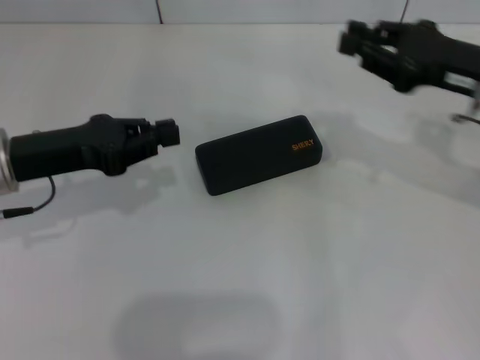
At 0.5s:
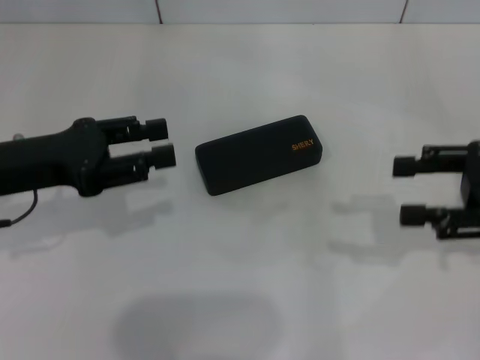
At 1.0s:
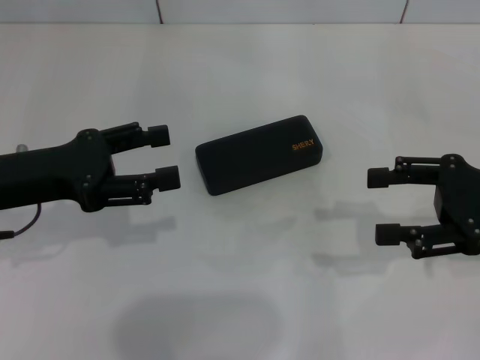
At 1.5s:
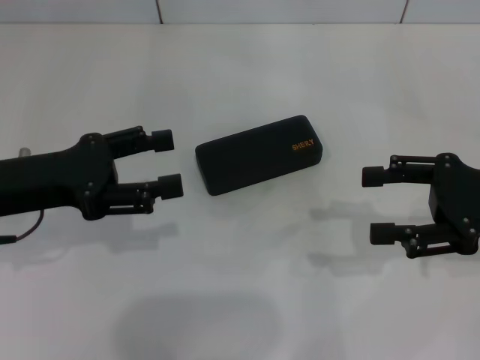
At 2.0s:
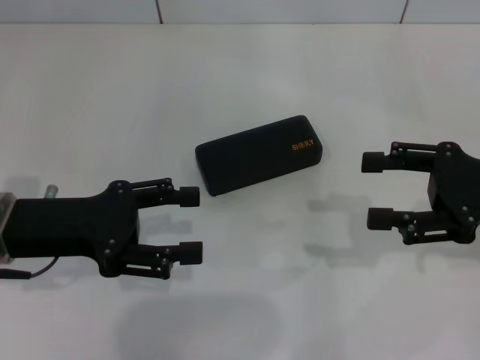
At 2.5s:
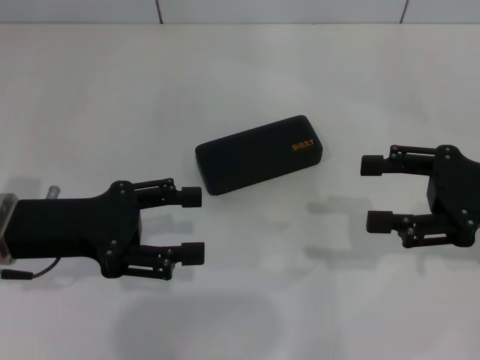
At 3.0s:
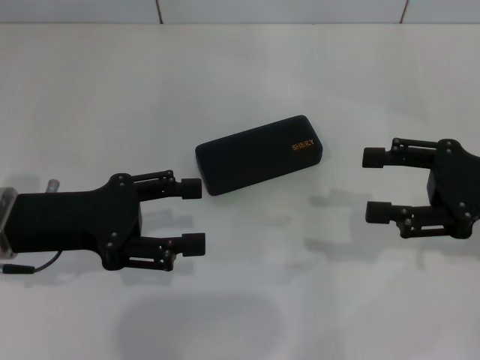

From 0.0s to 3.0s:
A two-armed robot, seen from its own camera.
From 0.0s to 1.5s: The left gripper opens up. The right gripper is displaced backward by some 5 cm, and opens up.
From 1.5s to 3.0s: The grippers stay close to where they were, moving slightly.

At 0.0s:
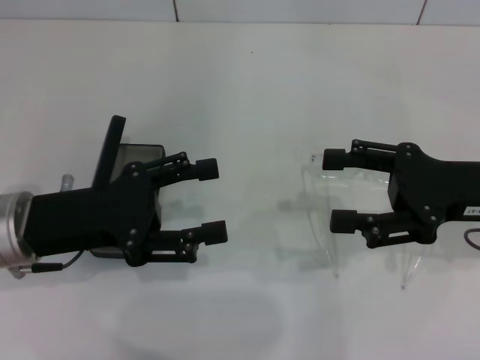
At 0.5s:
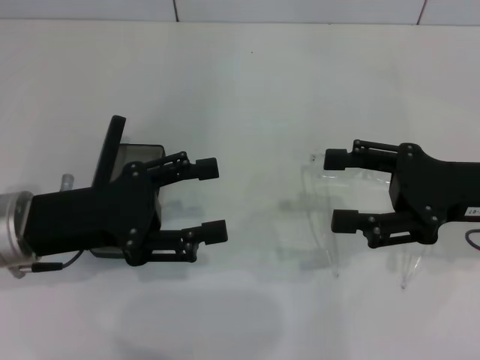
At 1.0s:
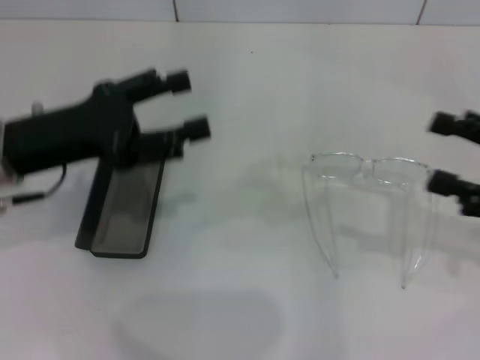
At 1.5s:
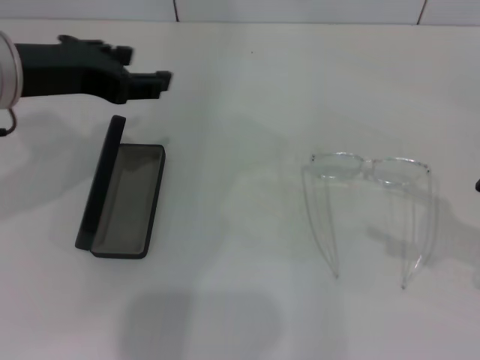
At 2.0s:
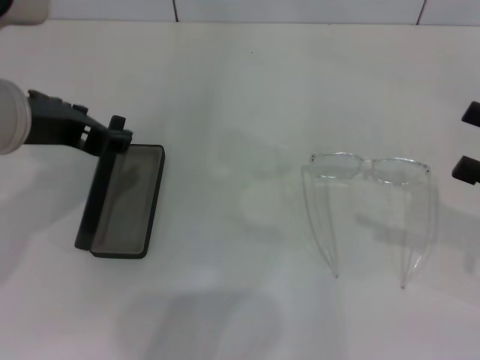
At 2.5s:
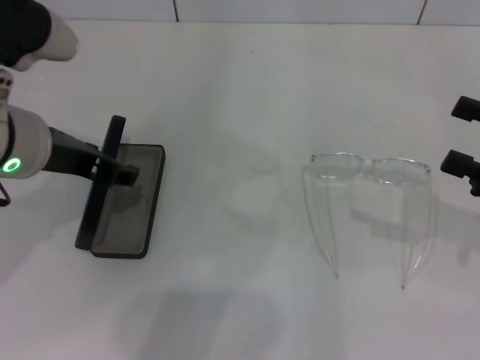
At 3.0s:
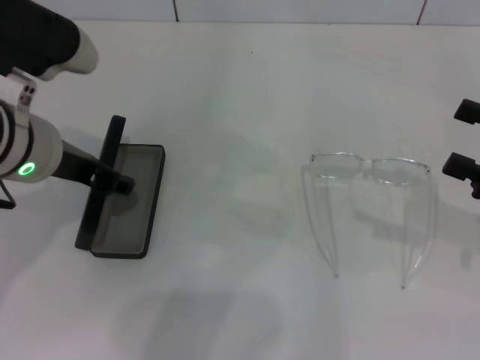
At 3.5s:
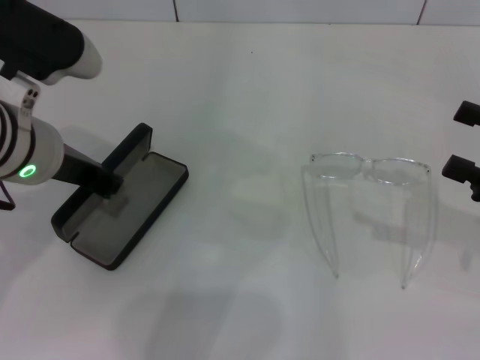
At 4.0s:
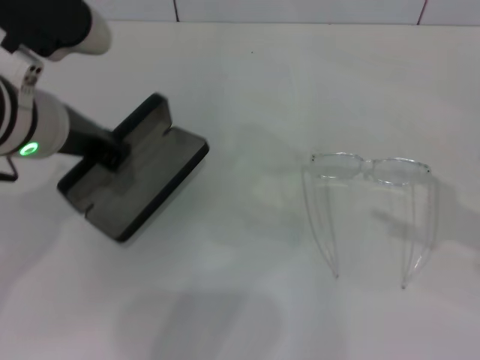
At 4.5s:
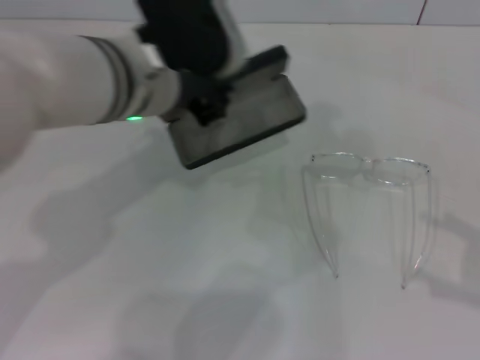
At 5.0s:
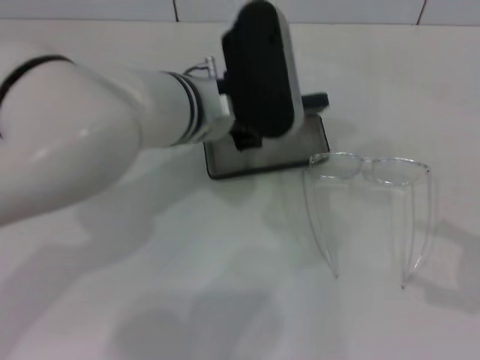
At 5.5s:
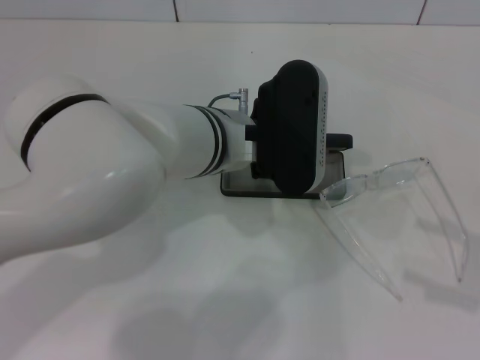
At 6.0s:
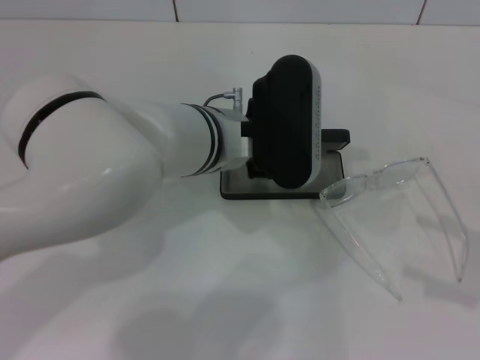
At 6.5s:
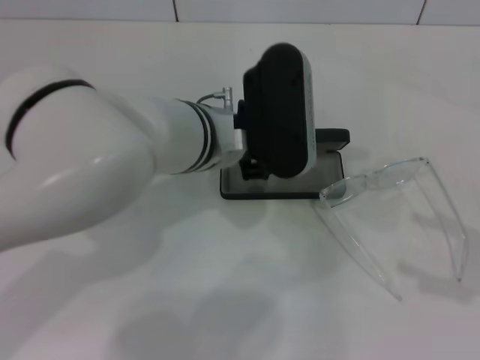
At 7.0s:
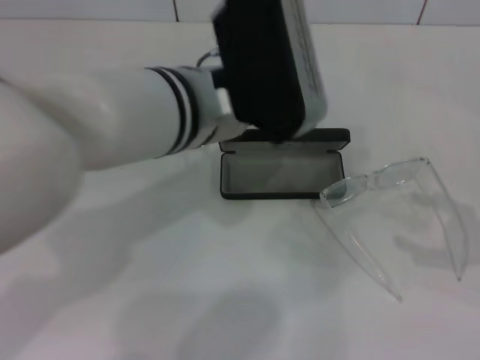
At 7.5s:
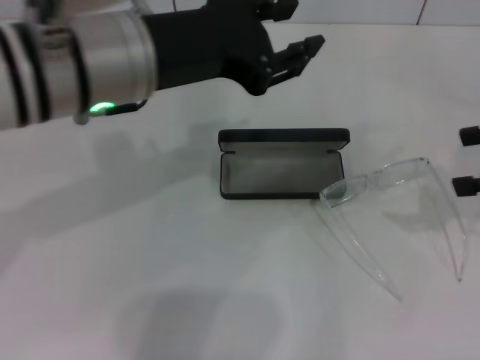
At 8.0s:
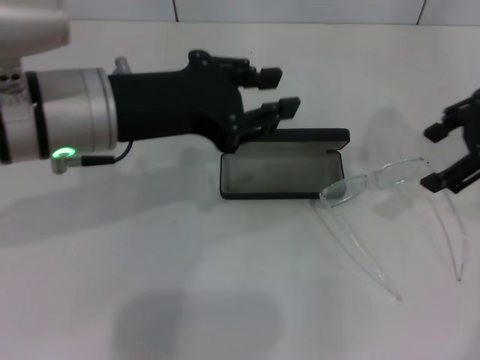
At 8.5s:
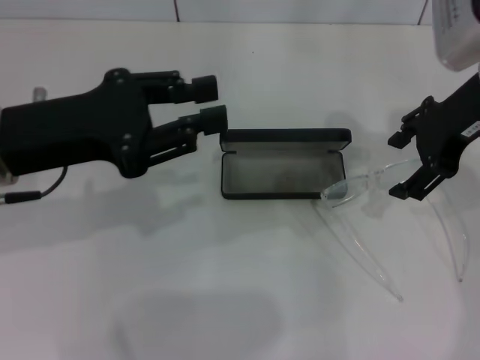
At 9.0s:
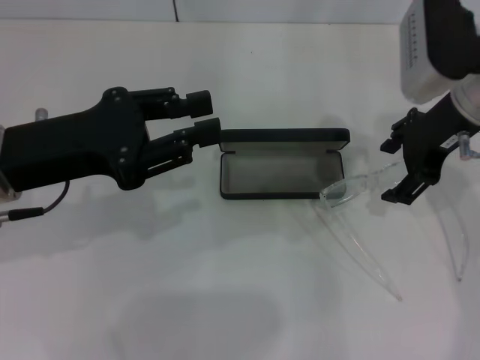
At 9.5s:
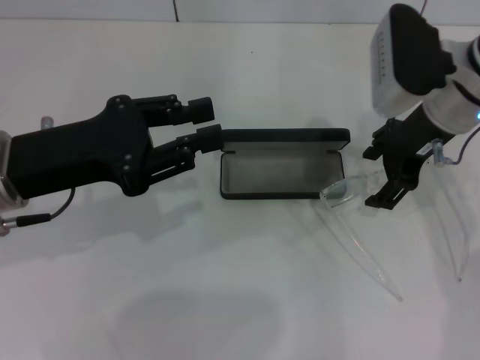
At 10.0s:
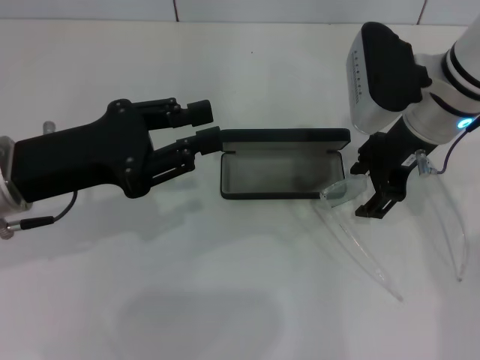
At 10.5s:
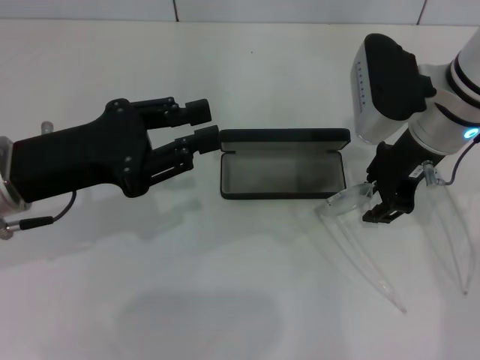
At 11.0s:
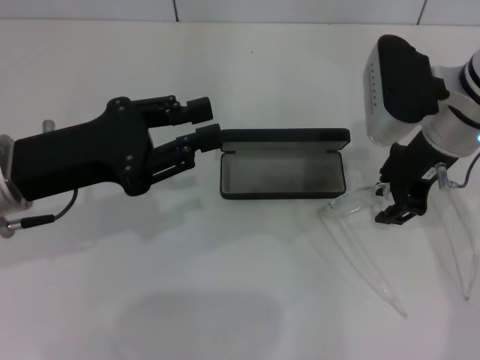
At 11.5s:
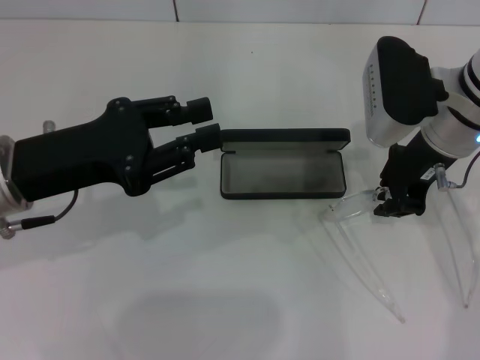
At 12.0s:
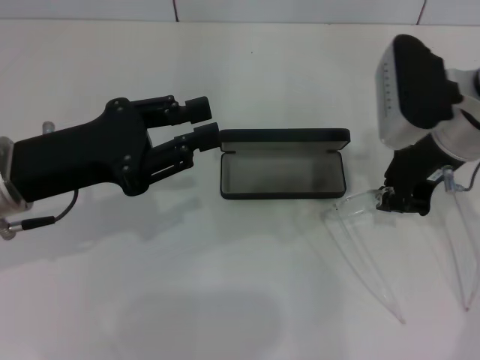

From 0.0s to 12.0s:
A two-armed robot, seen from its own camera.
Step, from 0.0s to 3.0s: Grab the glasses case with your left hand.
Step, from 4.0s to 6.5s: Place the glasses case in the center of the table with your left hand.
Step, from 7.0s to 11.5s: Grab the eyeglass frame with your right hand.
From 0.0s to 2.0s: The right gripper moves to the right, roughly 10 cm, while the left gripper heads upward, covering roughly 10 cm.
From 2.0s to 4.0s: The left gripper closes.
From 4.0s to 6.0s: The left gripper shifts roughly 15 cm to the right and downward; the right gripper goes roughly 5 cm backward.
From 6.0s to 8.0s: The left gripper heads to the left and upward, covering about 15 cm. Meanwhile the right gripper travels forward, to the left and upward by approximately 25 cm.
From 8.0s to 10.0s: The two grippers go some 10 cm to the left and downward.
From 10.0s to 12.0s: The right gripper closes its fingers.

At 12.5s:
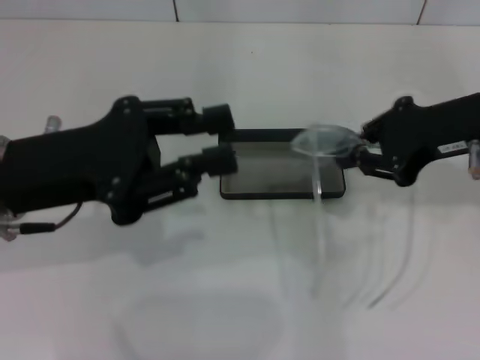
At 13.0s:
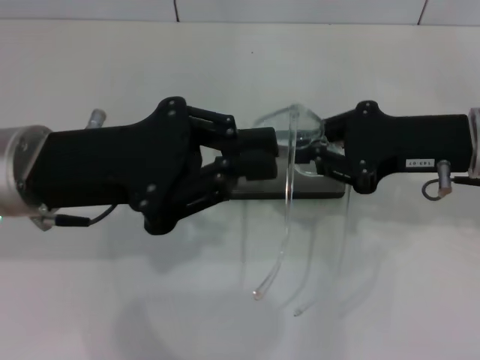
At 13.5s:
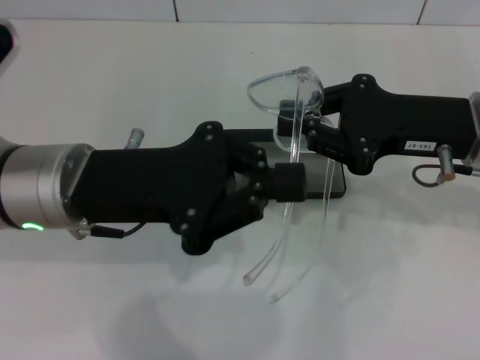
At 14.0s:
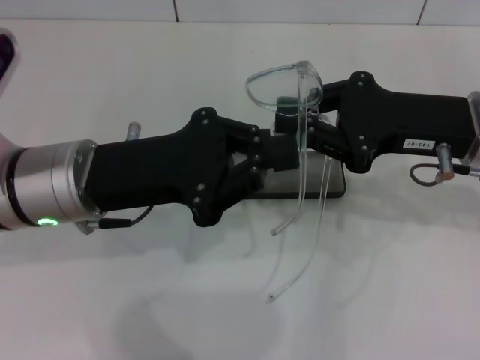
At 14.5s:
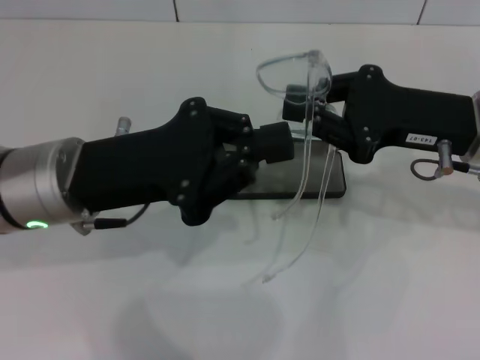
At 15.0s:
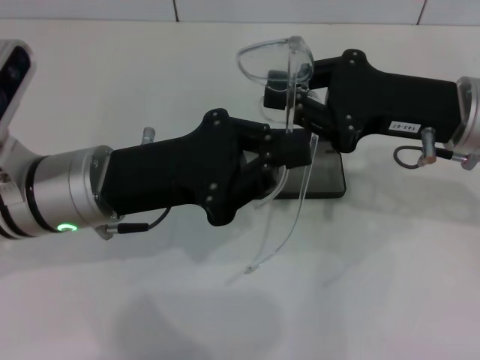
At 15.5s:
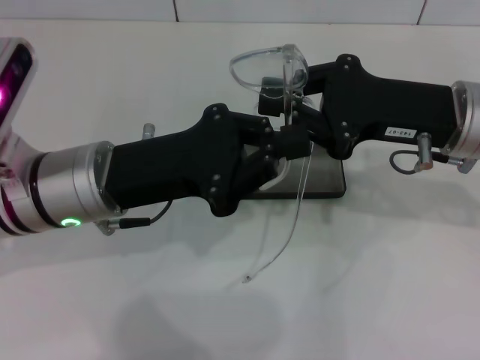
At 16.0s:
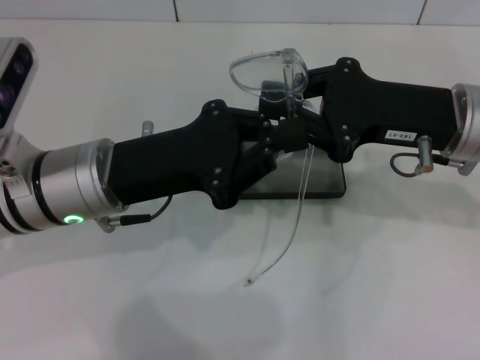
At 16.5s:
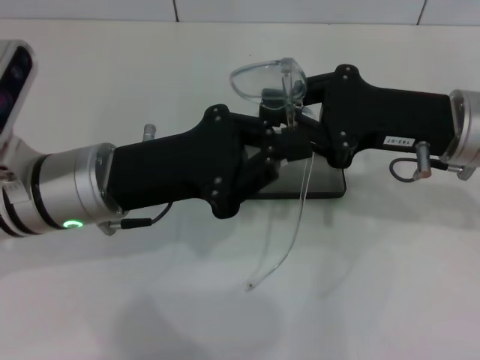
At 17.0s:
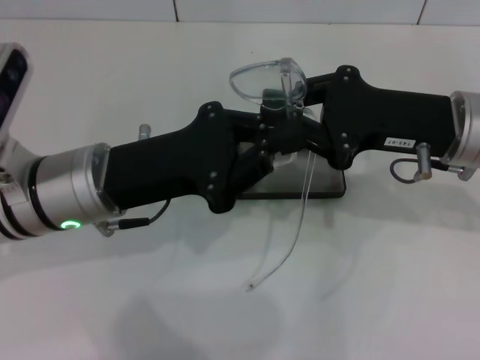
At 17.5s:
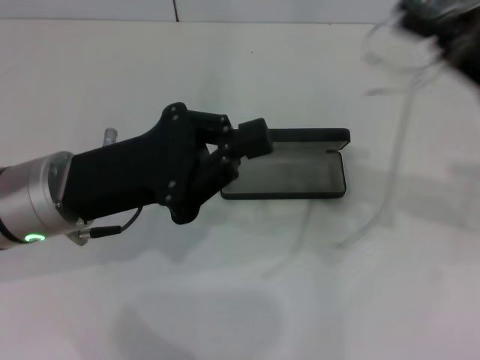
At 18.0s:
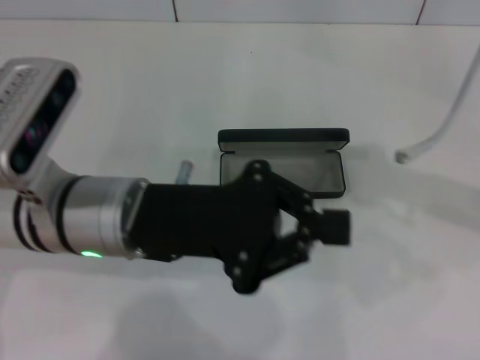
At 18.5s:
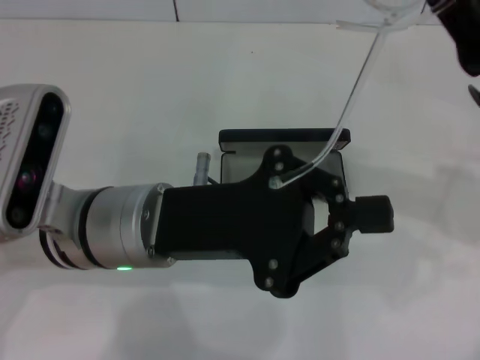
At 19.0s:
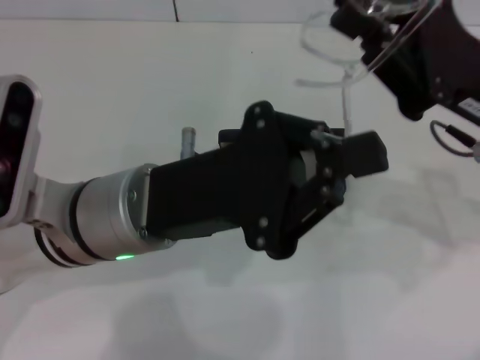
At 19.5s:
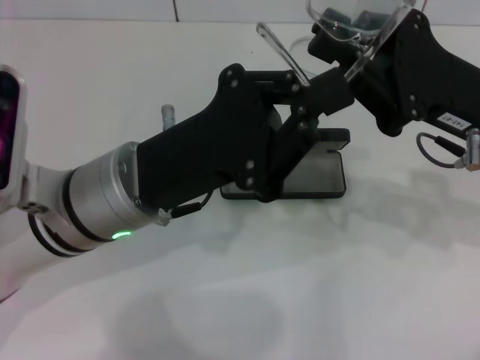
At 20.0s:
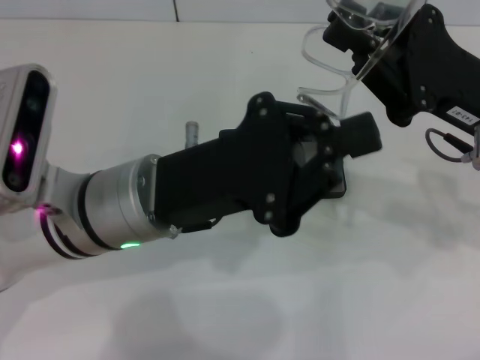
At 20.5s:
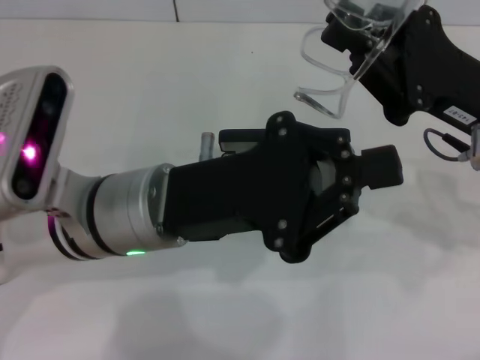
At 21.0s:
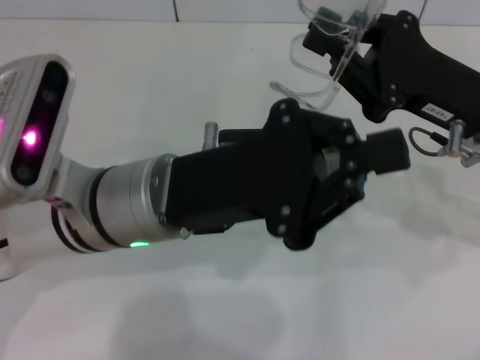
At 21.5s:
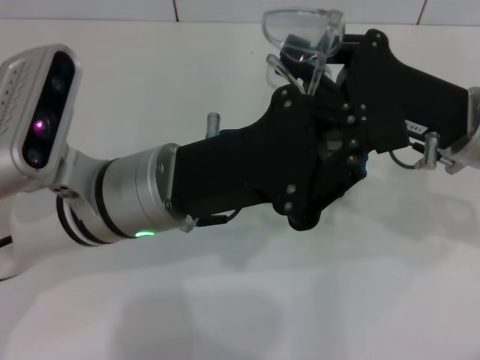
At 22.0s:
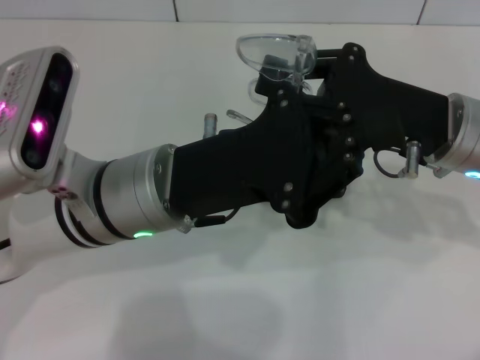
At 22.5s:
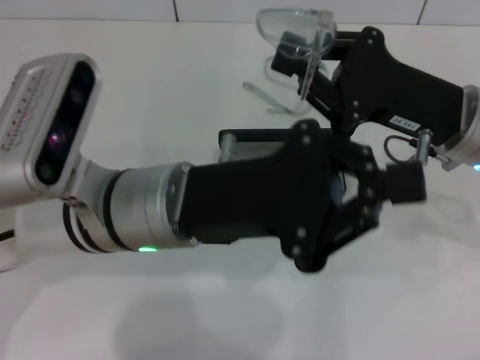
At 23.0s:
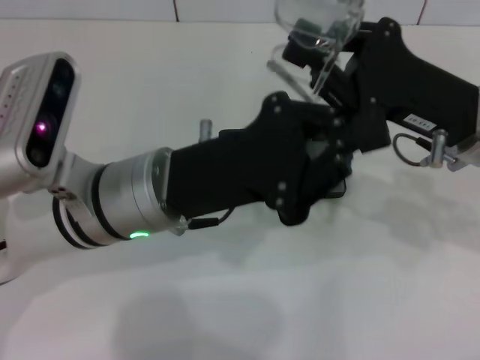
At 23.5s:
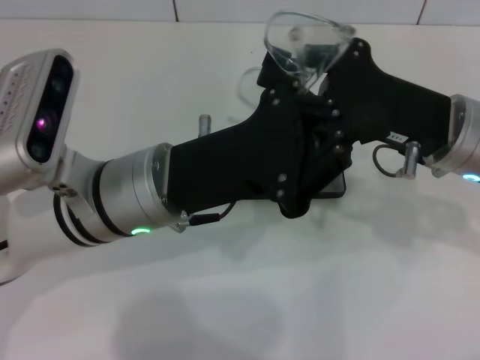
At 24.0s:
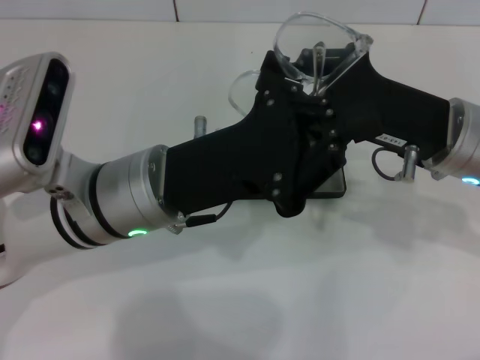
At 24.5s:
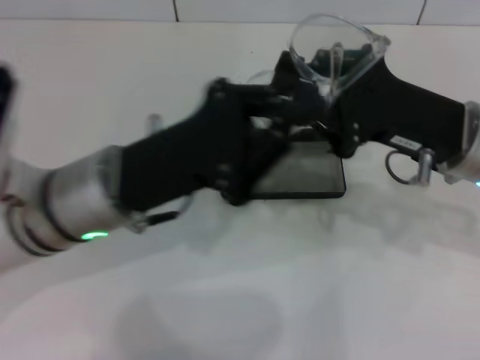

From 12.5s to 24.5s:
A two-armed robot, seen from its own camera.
Step, from 12.5s to 21.5s: Fold the frame with your left hand.
From 12.5s to 14.5s: The left gripper ends up approximately 5 cm from where it was, and closes.
From 14.5s to 16.5s: The grippers make only small movements.
From 16.5s to 18.5s: The left gripper moves approximately 5 cm.
